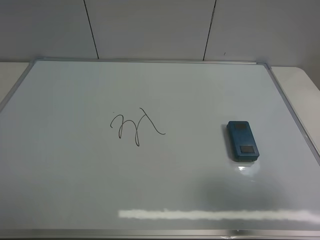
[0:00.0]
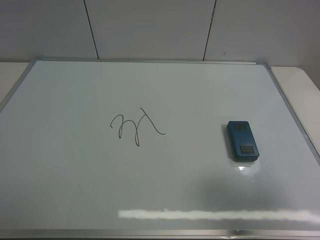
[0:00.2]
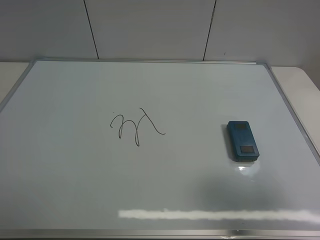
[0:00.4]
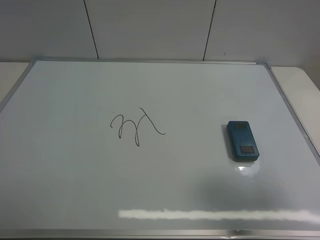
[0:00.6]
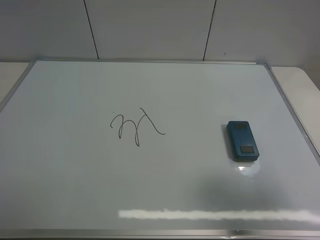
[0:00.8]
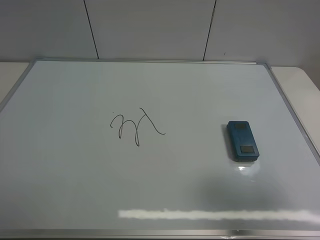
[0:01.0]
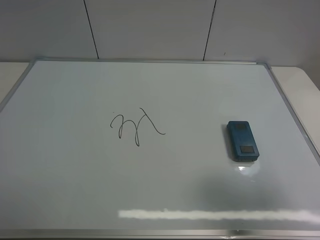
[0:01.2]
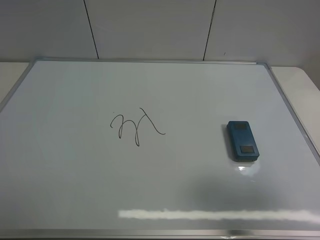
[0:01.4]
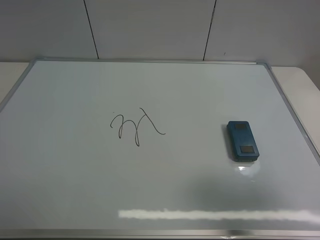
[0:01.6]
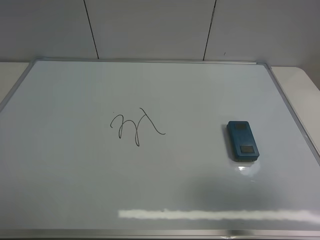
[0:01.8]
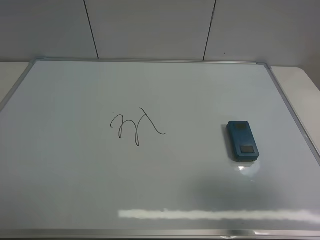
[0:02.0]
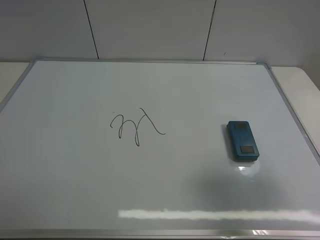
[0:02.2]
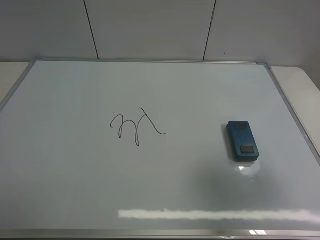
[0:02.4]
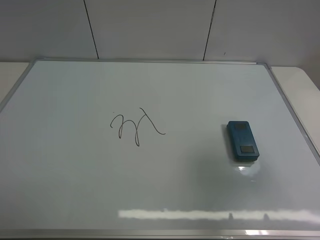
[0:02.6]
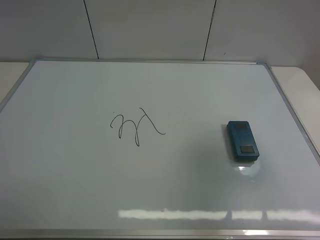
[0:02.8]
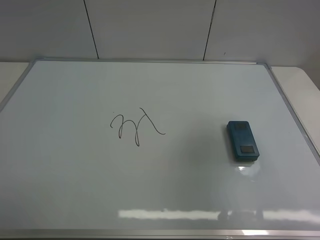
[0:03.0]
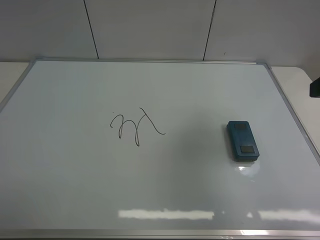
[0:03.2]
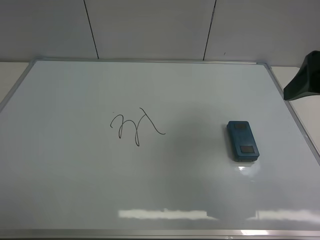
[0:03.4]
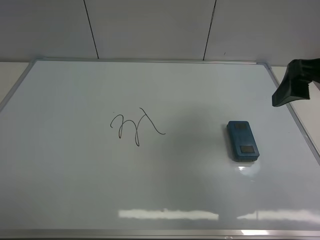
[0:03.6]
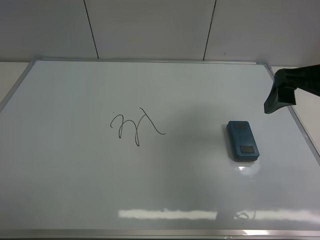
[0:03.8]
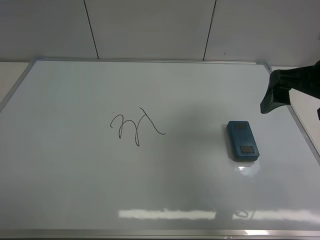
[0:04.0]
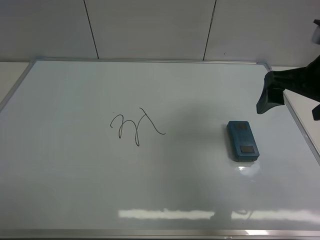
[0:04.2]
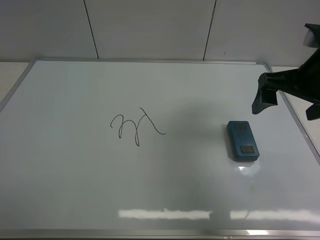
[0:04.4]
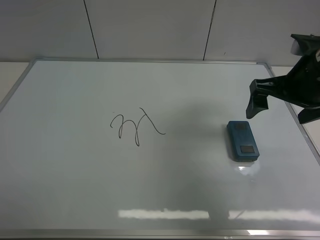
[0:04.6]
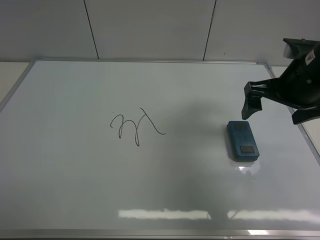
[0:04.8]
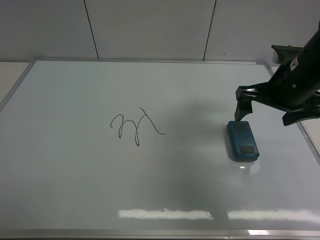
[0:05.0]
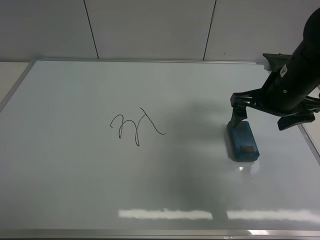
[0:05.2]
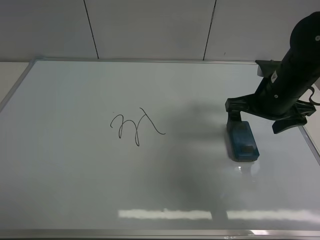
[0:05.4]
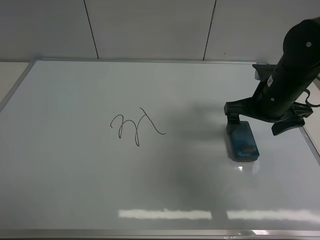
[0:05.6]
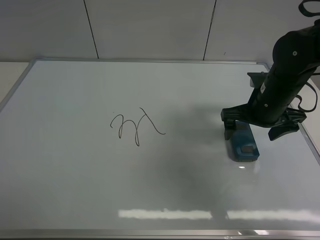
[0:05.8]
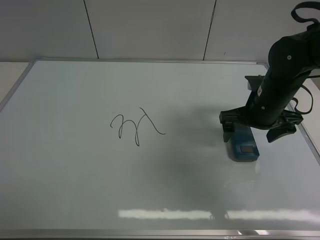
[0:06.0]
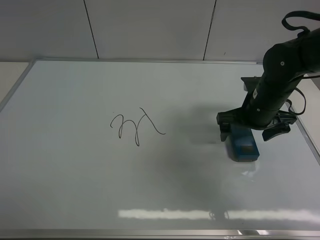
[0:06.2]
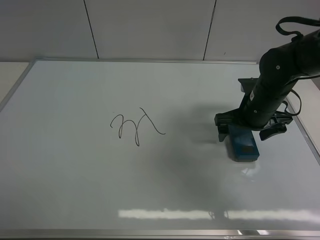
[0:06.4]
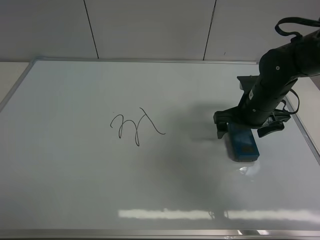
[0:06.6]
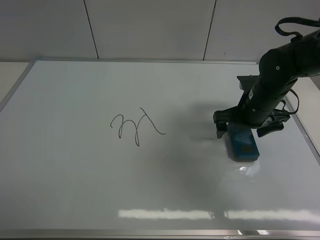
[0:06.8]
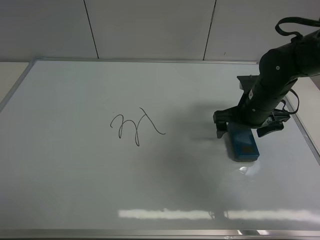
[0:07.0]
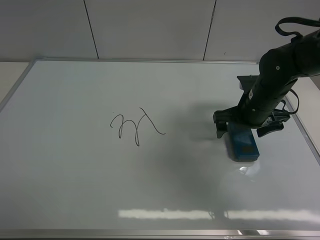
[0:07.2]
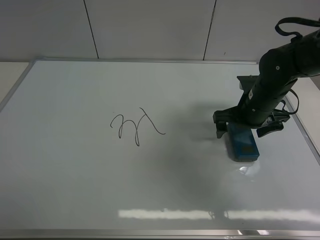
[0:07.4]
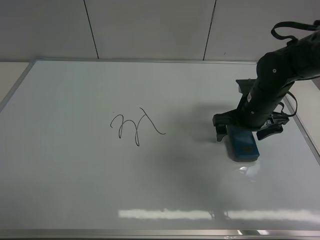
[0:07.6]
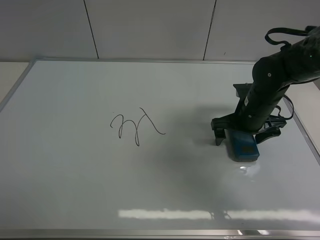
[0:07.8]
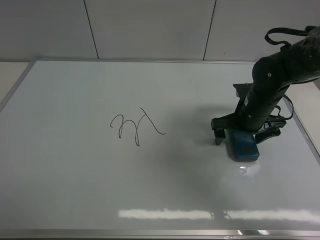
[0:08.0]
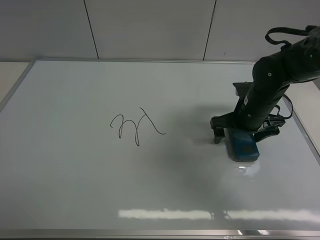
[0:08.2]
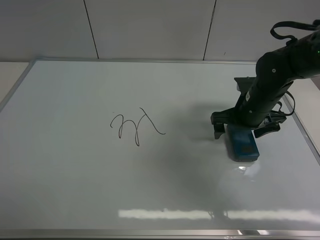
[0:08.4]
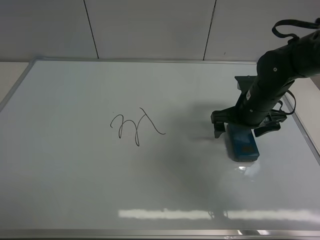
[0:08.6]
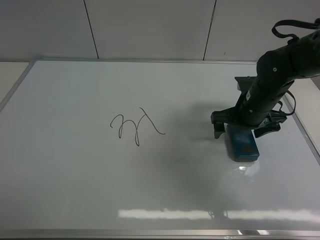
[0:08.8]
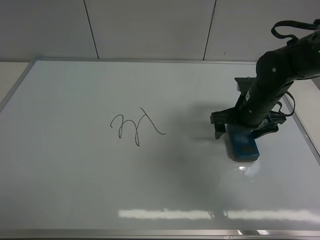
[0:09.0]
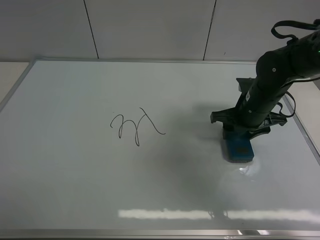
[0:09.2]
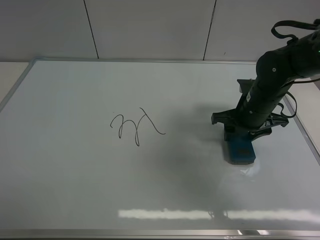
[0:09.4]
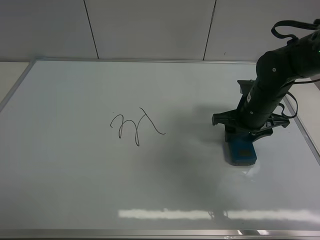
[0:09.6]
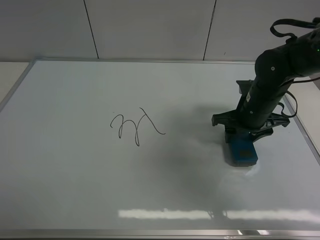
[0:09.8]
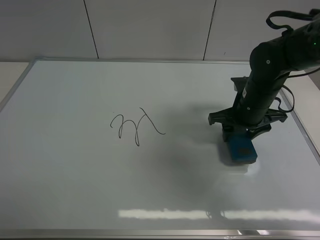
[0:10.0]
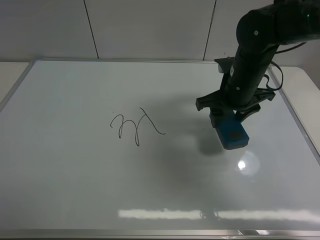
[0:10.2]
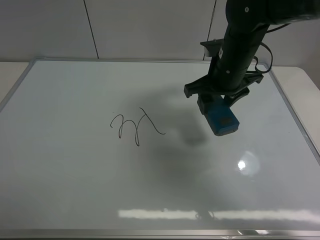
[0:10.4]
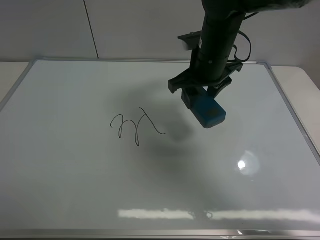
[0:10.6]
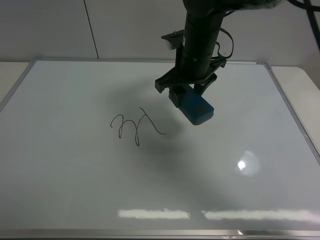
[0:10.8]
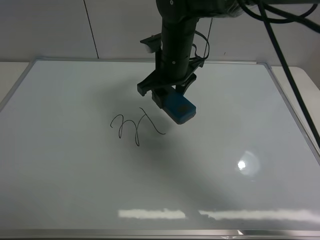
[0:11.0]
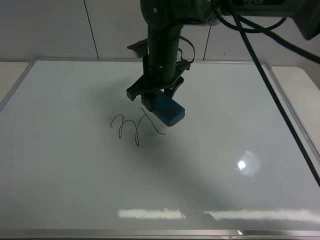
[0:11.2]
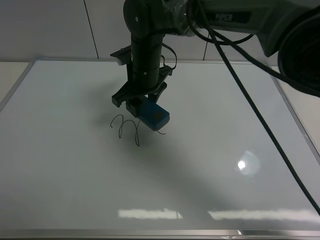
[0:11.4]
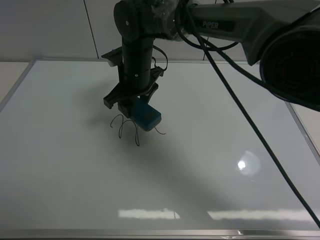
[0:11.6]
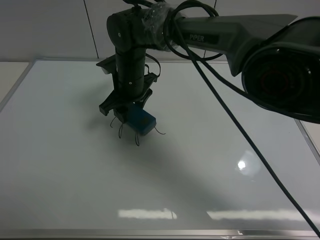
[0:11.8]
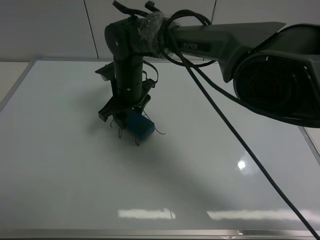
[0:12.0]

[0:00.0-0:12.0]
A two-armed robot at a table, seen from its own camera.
Task of the whole recording: use the right gripper to pick up the board eraser, wipe the notes on the whiteboard clean, and then put them back in place.
Step, 0:00.0 to 0:10.0: Pick up the board eraser with right gripper.
0:01.6 to 0:03.0: The right gripper moves forward, roughly 10 cm.
0:03.0 to 0:04.4: The right gripper shifts some 10 cm forward, downward and to the left.
0:04.4 to 0:06.0: The right gripper is displaced downward and forward by approximately 15 cm.
0:06.0 to 0:07.6: The grippers stay close to where they were, moving slightly.
0:07.6 to 0:09.0: The right gripper closes up.
0:09.0 to 0:10.4: The right gripper goes roughly 10 cm upward and to the left, and closes its fingers.
0:10.4 to 0:12.0: The right gripper travels to the left and downward by some 20 cm.

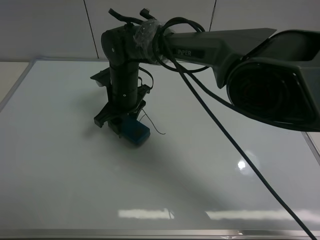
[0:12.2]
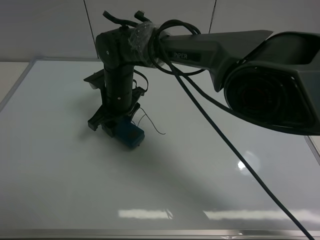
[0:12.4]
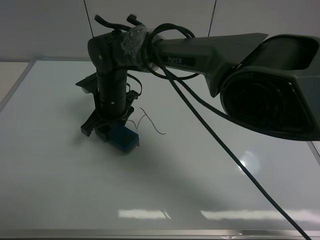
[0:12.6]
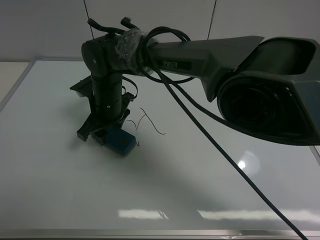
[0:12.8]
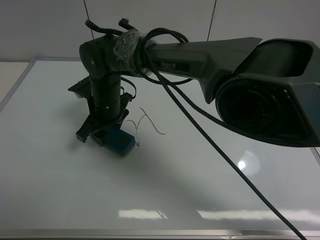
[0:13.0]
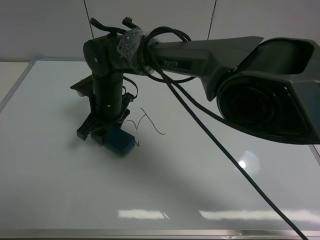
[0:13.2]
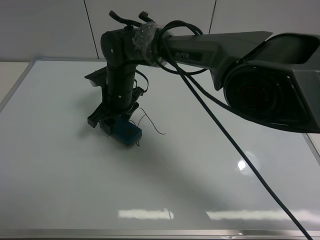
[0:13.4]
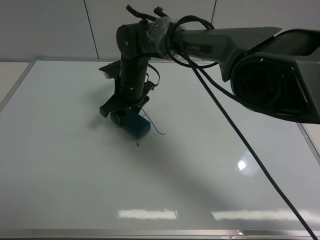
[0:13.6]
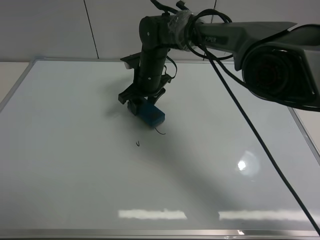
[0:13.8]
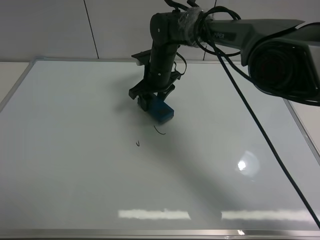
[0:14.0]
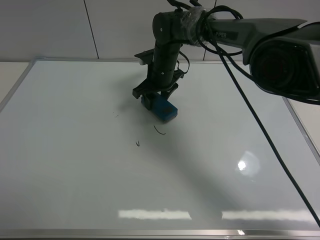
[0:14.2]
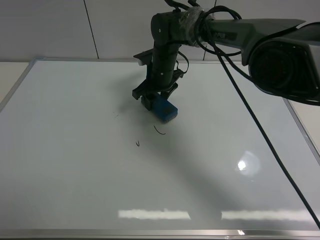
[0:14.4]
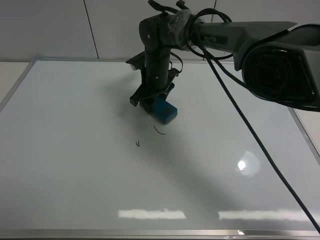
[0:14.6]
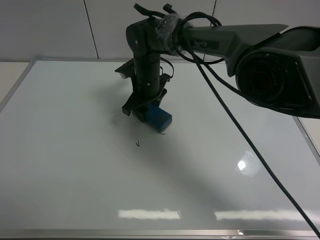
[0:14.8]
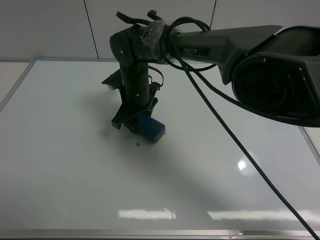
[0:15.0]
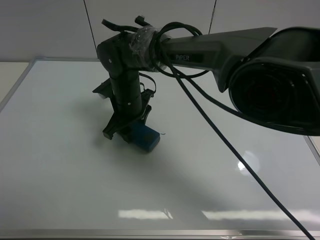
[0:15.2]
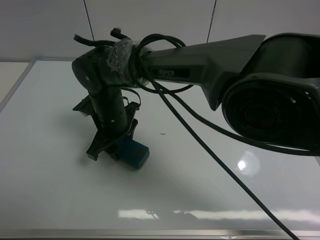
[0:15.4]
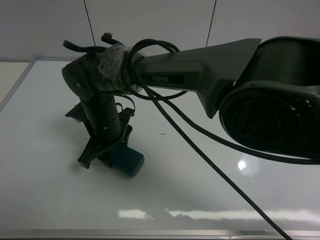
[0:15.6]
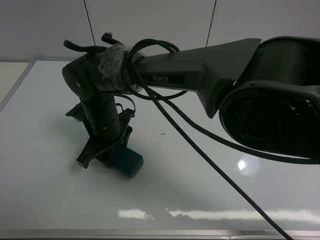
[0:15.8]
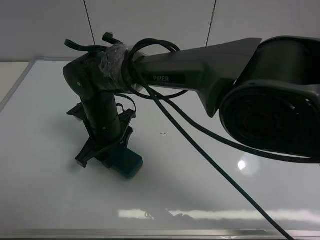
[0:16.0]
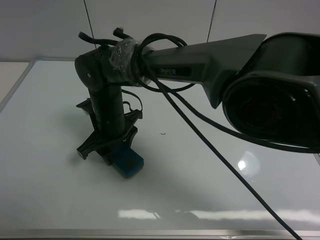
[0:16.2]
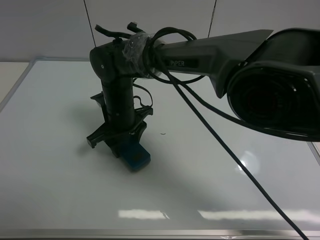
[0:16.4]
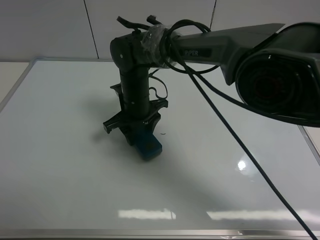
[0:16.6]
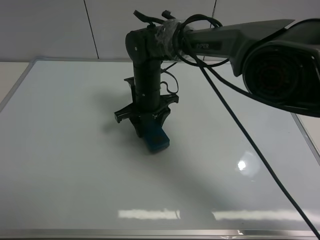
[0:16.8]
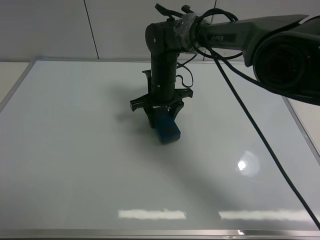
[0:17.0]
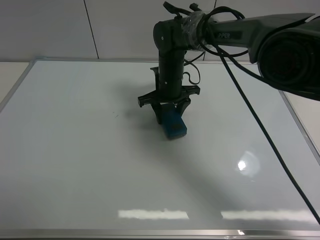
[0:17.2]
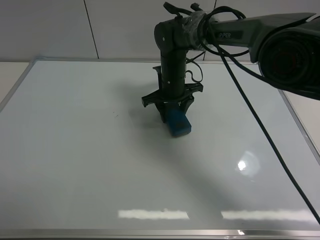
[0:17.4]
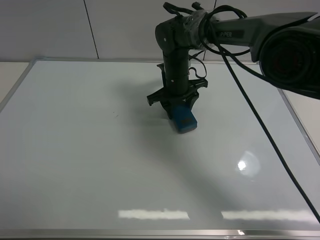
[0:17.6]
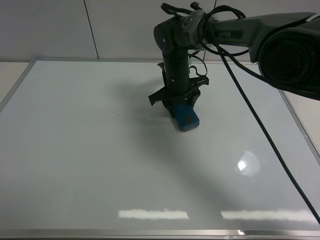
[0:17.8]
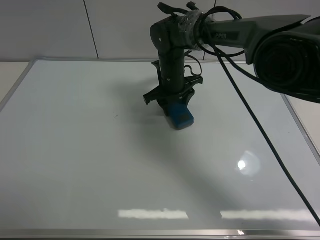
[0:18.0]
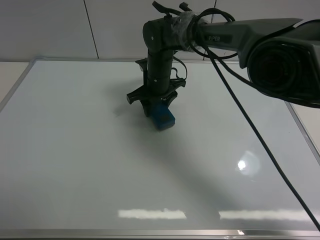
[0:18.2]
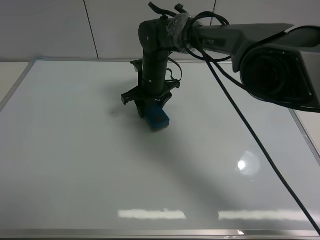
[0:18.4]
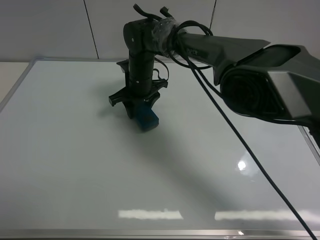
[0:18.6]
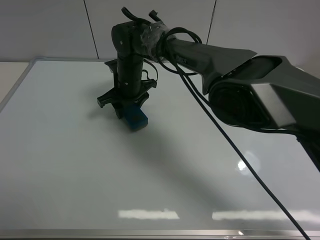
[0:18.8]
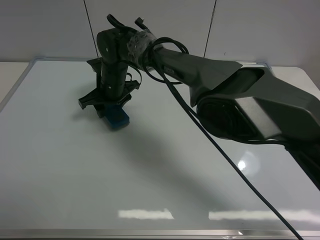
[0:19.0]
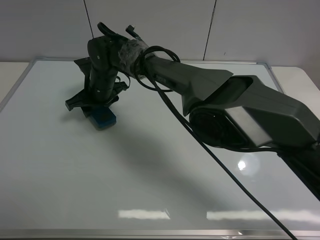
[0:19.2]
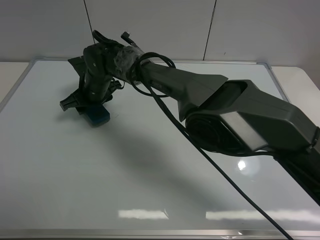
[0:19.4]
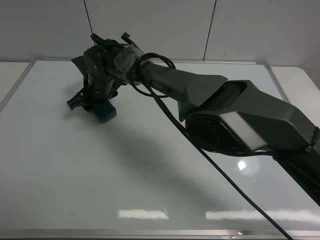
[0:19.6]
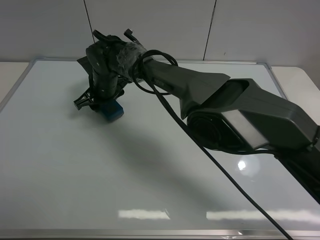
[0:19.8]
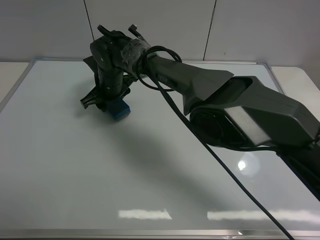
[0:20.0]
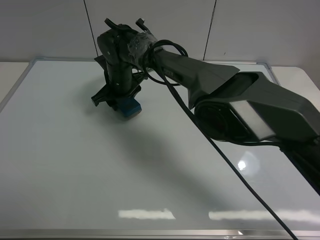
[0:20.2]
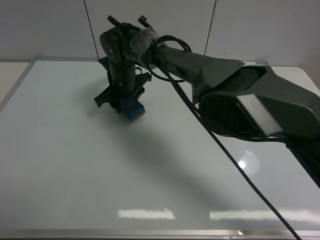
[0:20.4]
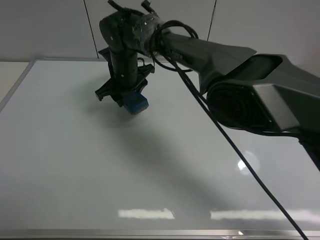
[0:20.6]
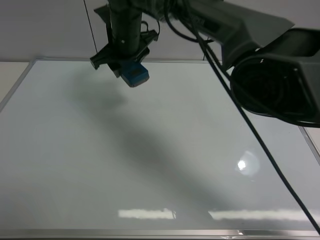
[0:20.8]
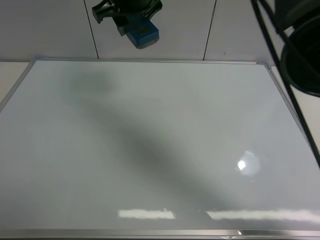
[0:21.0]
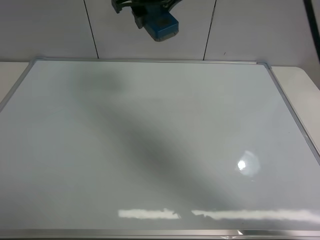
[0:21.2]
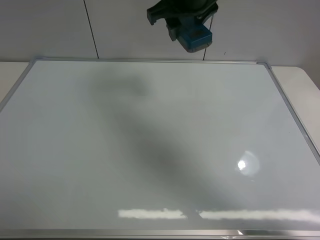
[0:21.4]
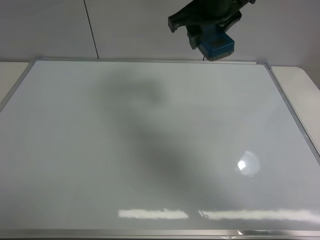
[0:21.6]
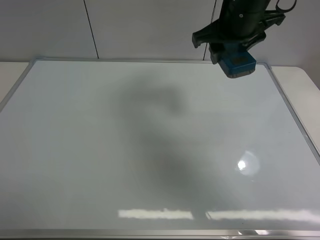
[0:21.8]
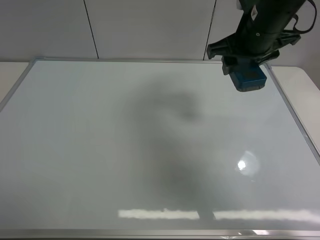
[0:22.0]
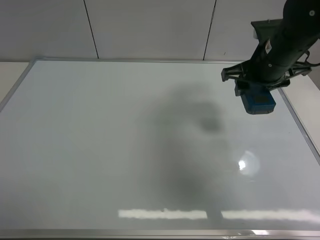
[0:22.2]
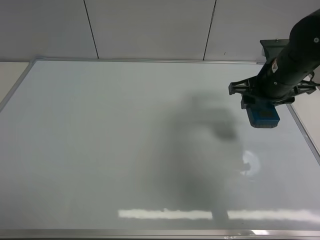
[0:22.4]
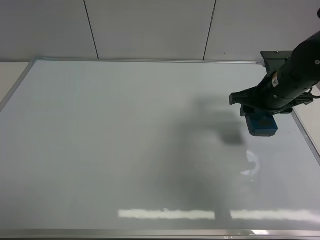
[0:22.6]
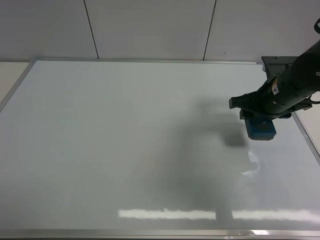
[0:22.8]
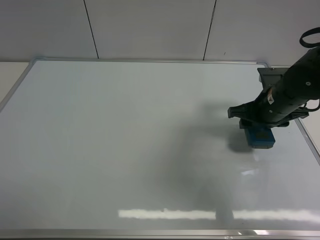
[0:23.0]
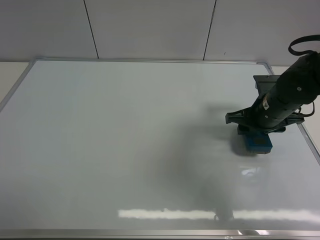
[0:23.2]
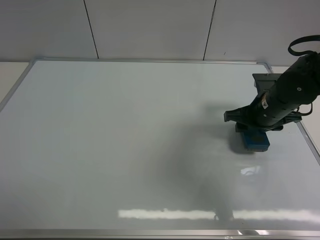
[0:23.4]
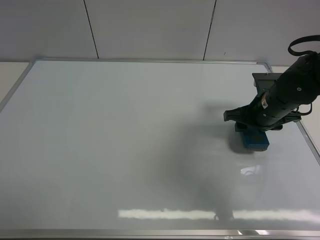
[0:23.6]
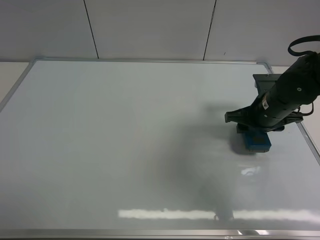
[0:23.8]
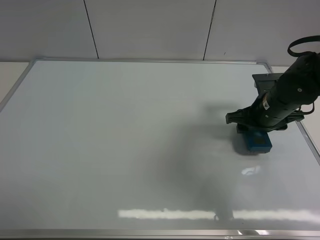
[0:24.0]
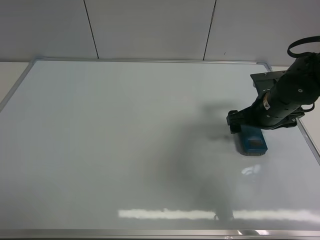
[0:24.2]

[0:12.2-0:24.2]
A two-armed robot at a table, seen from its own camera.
Task of the whole recording: use the right gripper to pick up the board eraser, wipe the notes on the whiteboard clean, and then put them back in place.
Step, 0:12.2 to 0:20.4: Wipe off the writing on the board with right gripper.
0:12.2 to 0:13.8: The right gripper heads forward and to the right, covering about 10 cm.
0:13.8 to 0:15.2: The right gripper moves backward and to the left, some 10 cm.
0:16.6 to 0:18.2: The right gripper shifts about 5 cm forward.
0:18.2 to 0:19.8: The right gripper shifts roughly 10 cm to the left.
0:19.8 to 0:21.2: The right gripper travels upward and to the right by approximately 25 cm.
0:21.2 to 0:22.6: The right gripper heads to the right and downward, covering approximately 30 cm.
0:22.6 to 0:24.2: The right gripper opens up.
